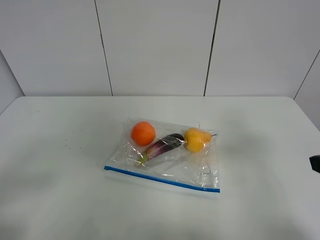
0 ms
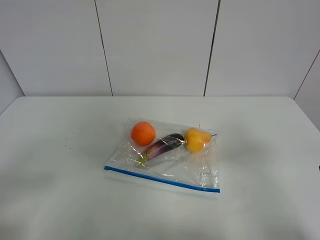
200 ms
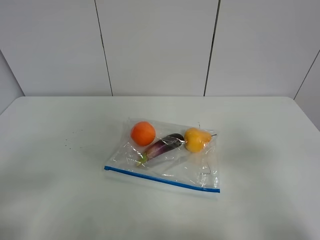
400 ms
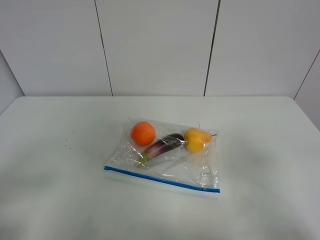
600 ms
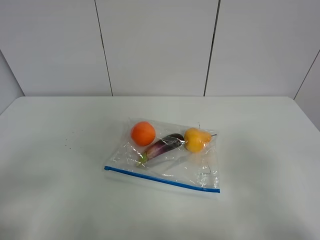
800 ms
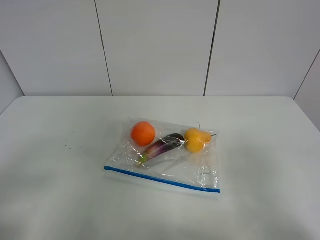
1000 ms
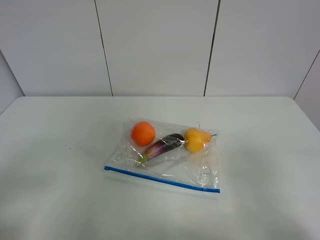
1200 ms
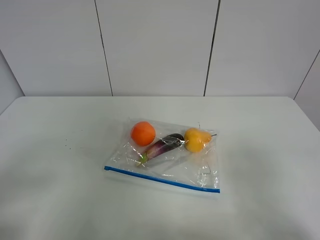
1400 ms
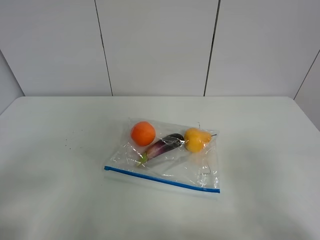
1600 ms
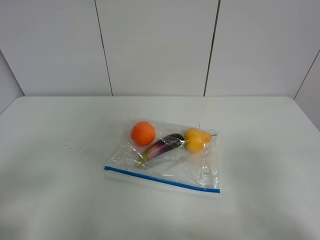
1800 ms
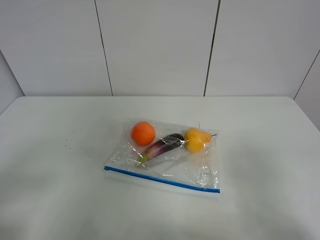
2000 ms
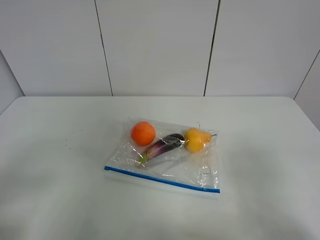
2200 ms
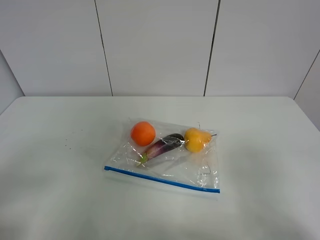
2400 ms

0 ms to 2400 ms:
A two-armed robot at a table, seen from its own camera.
1200 ms to 2400 ms: Both grippers stay put.

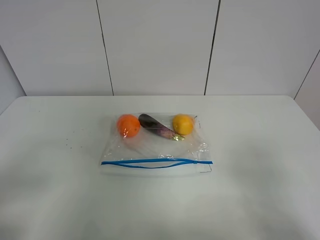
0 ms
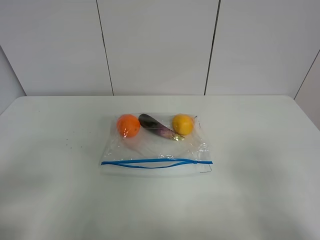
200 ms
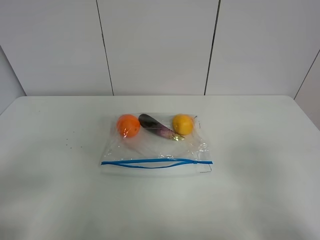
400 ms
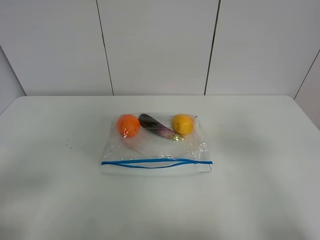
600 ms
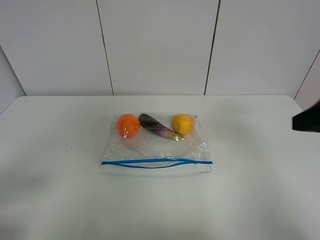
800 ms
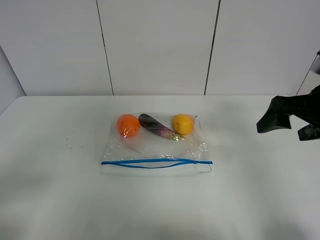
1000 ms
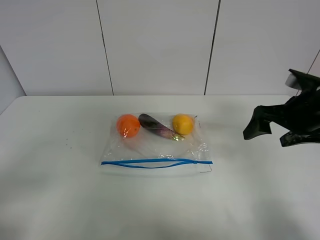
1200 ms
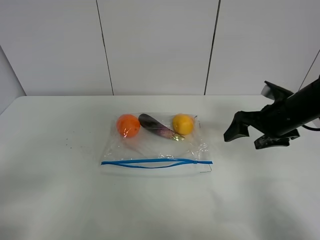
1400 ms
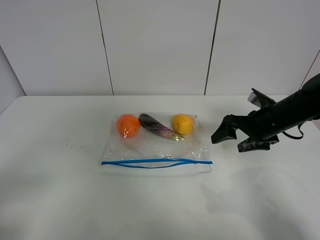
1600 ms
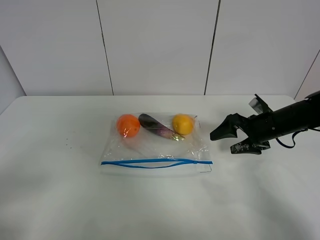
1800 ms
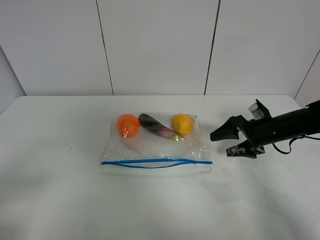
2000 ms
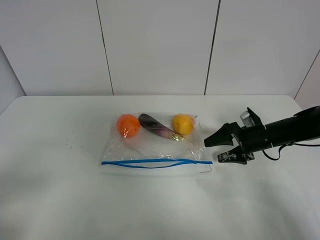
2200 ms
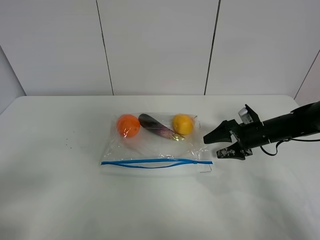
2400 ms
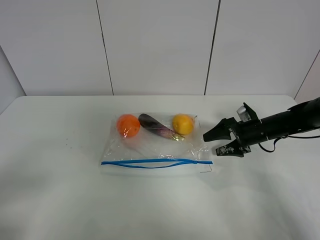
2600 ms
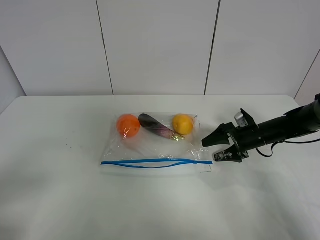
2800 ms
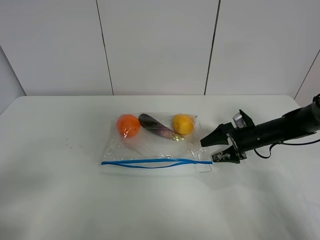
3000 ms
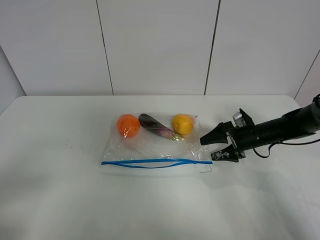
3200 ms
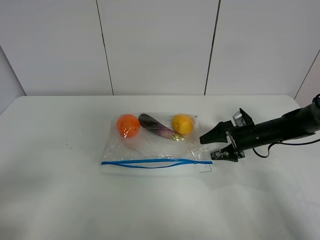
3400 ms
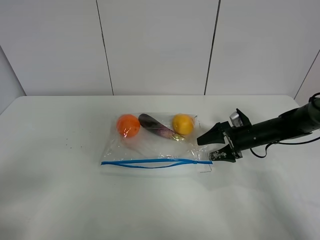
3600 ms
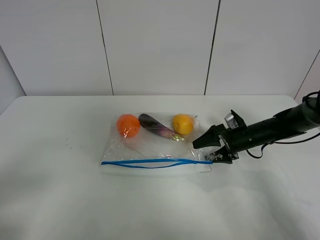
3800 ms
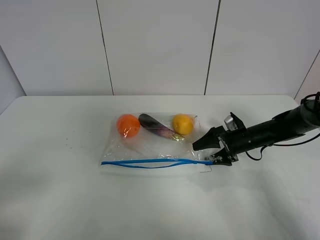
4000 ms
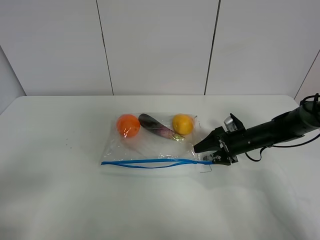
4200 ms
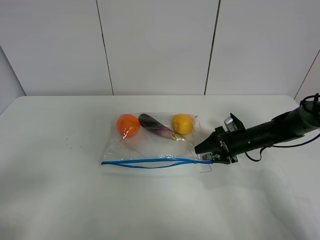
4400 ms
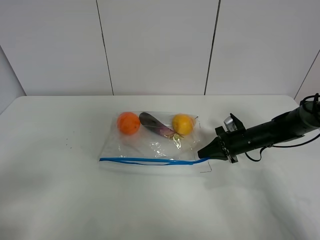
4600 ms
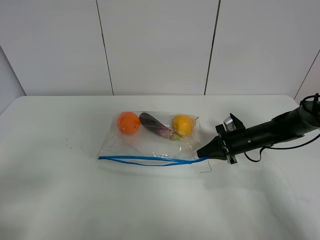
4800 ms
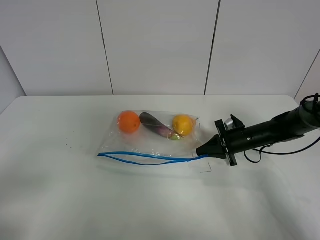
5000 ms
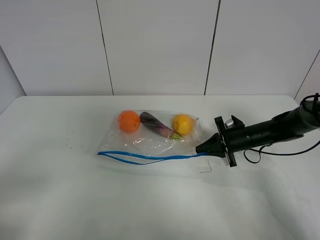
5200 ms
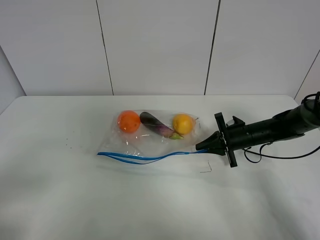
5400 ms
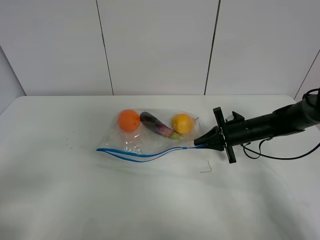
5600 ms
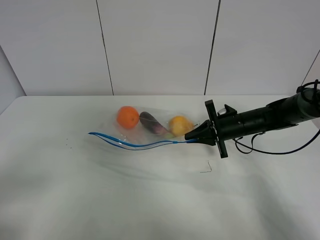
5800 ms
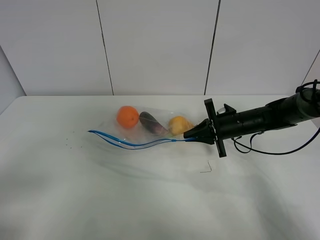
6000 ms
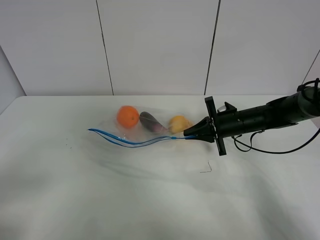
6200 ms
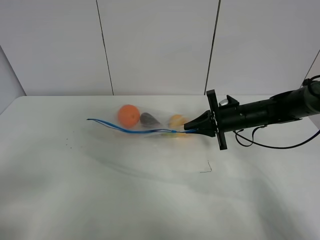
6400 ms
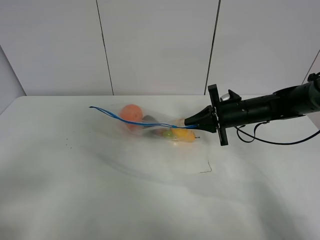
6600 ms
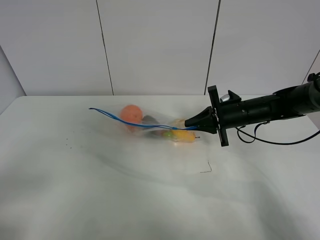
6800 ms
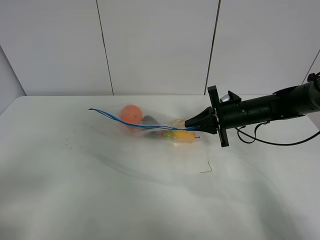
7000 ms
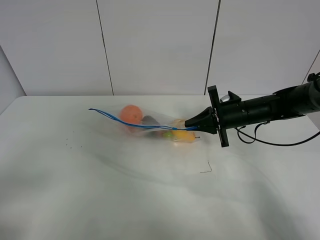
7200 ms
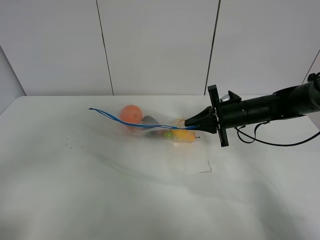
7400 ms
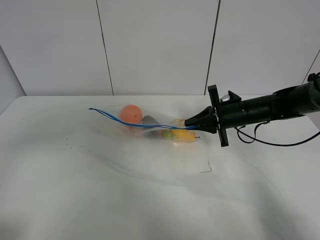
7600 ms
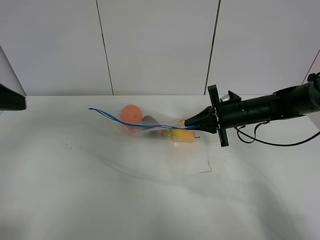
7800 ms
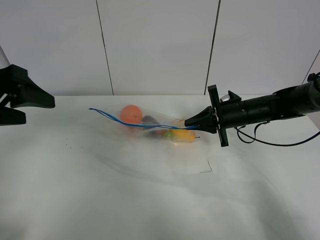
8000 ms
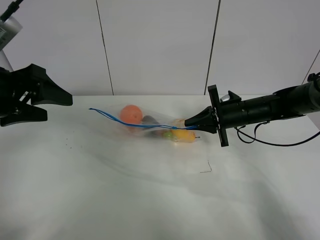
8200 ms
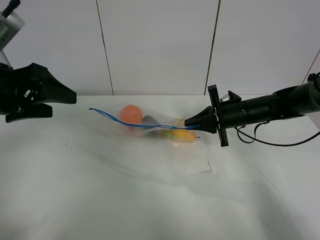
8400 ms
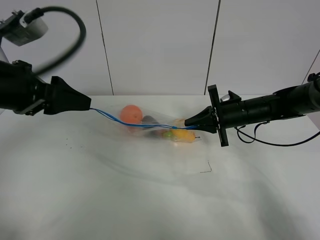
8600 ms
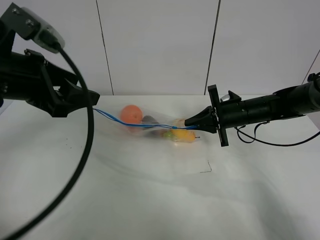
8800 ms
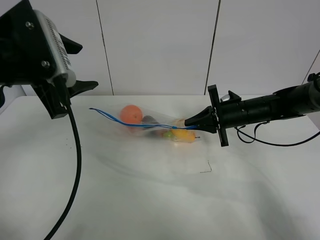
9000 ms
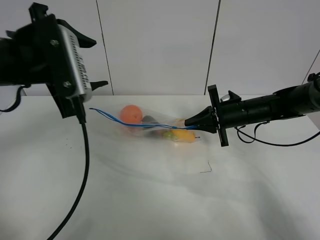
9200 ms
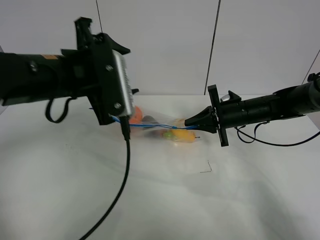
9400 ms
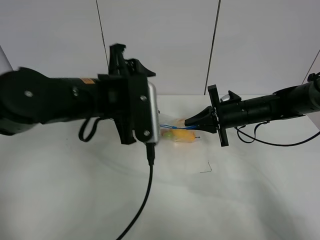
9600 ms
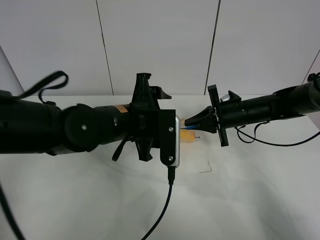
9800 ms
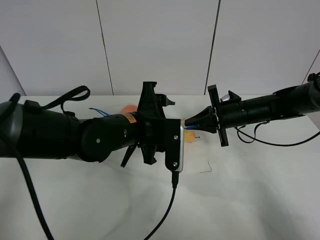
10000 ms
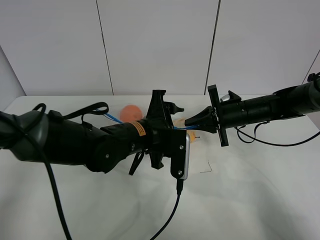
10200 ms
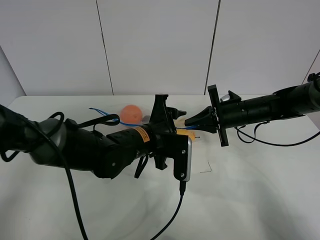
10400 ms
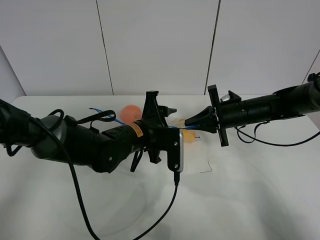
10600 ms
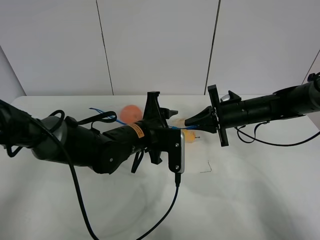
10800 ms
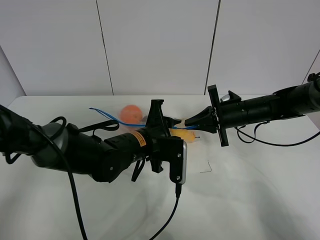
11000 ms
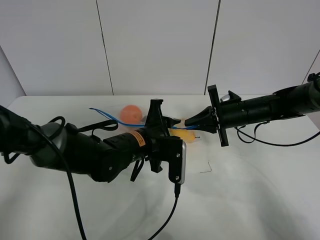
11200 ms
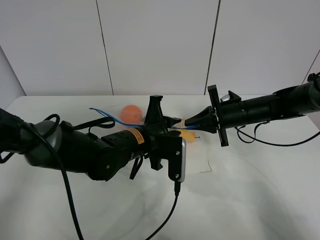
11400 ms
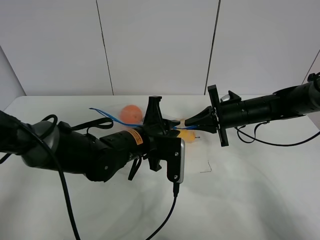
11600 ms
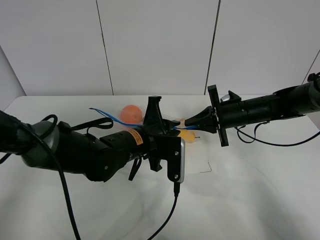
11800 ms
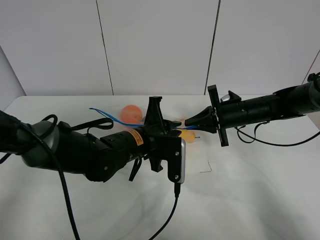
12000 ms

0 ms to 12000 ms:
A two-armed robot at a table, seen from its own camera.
Step, 0 ms to 4600 ms: Grasp the fruit bag with right gripper.
Step, 4800 ms to 6800 ms: Lift the fruit bag with your right gripper.
0 ms to 1600 ms: The right gripper moves forward, approximately 30 cm.
1600 ms to 3000 ms: The right gripper travels downward by about 10 cm.
3000 ms to 4400 ms: The right gripper closes.
4400 ms to 6000 ms: The right gripper goes some 5 cm upward, and closes its fingers.
6000 ms to 7600 ms: The left gripper travels forward and upward by roughly 10 cm.
7600 ms to 9000 ms: The left gripper shifts about 15 cm forward and to the right.
9000 ms to 10400 ms: The left gripper shifts roughly 25 cm downward and to the right.
10400 ms to 12000 ms: The left gripper closes its fingers.

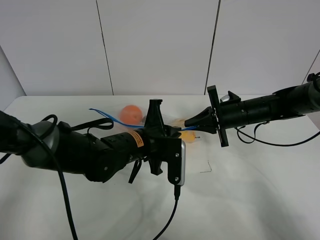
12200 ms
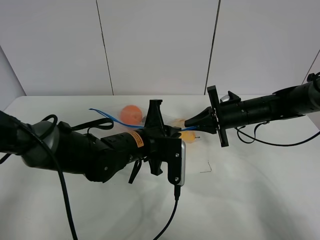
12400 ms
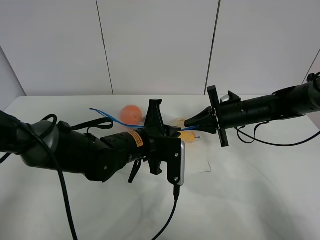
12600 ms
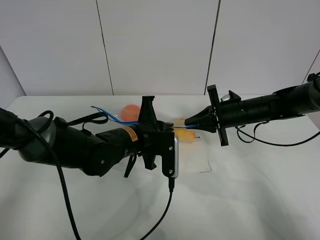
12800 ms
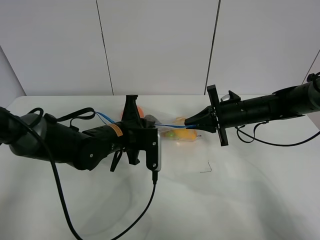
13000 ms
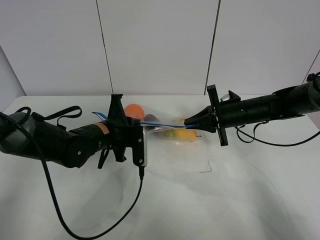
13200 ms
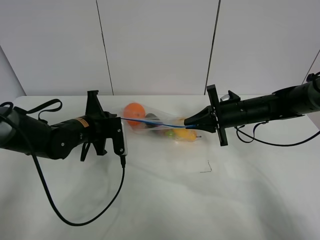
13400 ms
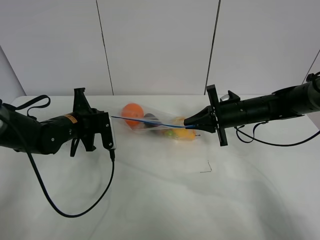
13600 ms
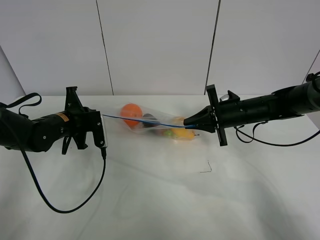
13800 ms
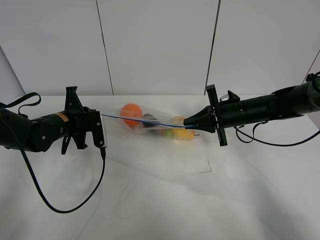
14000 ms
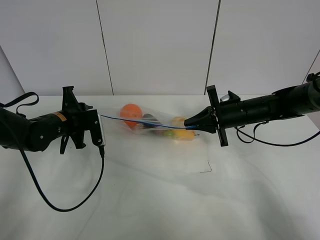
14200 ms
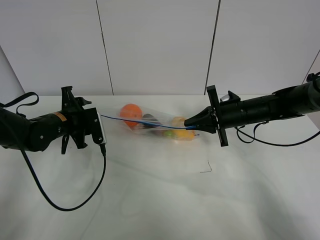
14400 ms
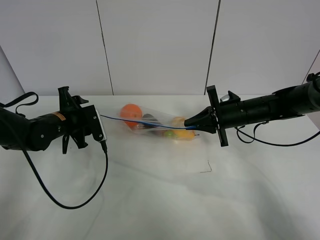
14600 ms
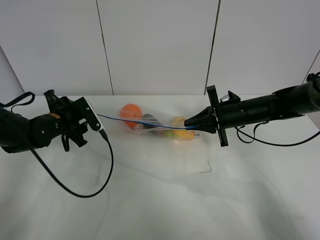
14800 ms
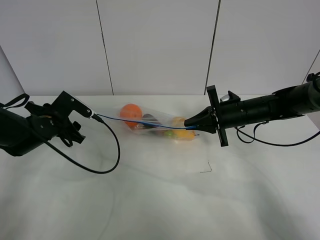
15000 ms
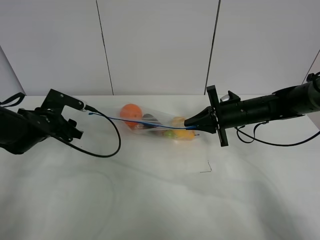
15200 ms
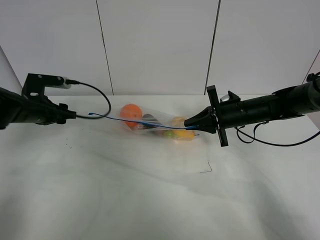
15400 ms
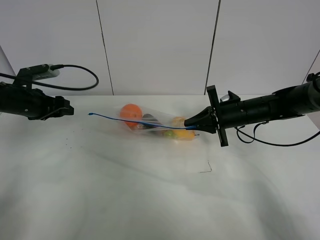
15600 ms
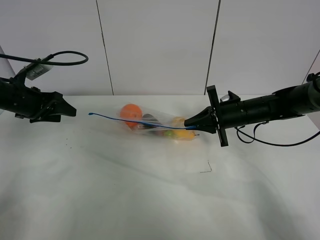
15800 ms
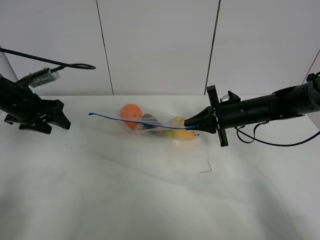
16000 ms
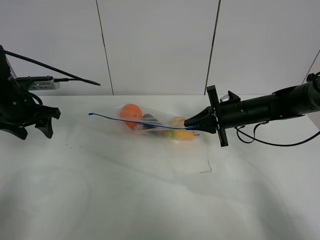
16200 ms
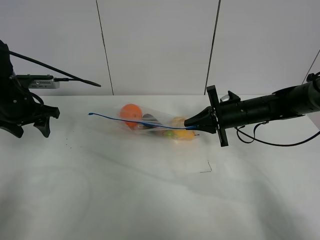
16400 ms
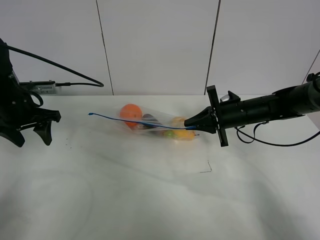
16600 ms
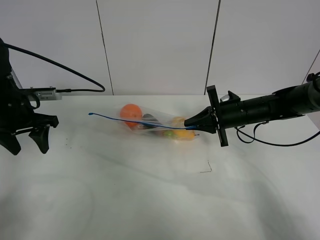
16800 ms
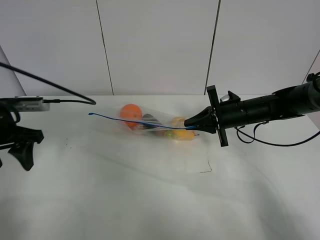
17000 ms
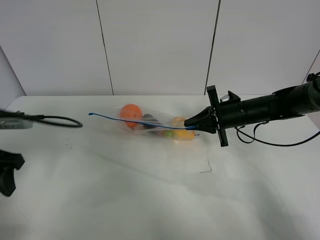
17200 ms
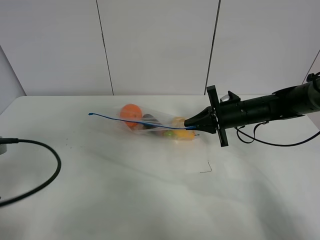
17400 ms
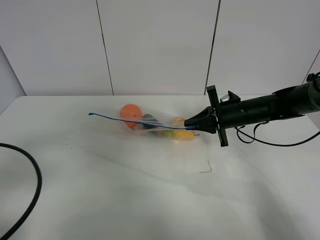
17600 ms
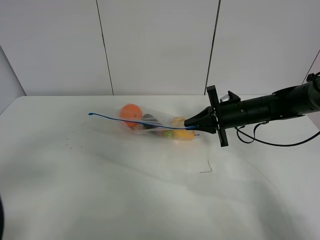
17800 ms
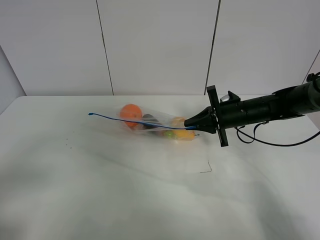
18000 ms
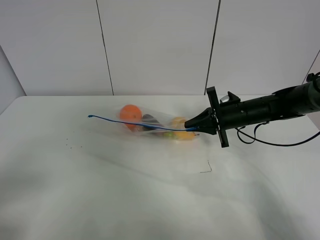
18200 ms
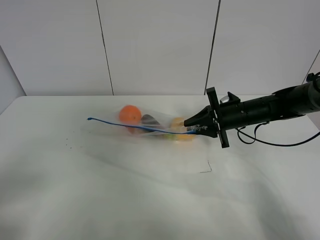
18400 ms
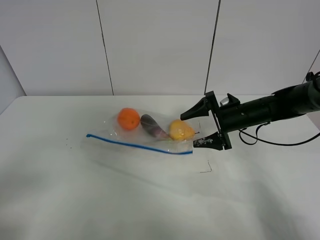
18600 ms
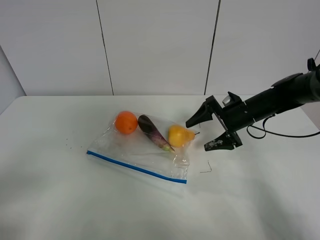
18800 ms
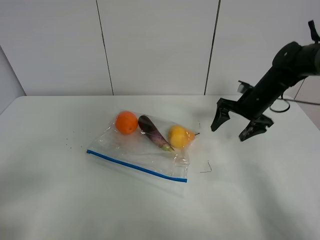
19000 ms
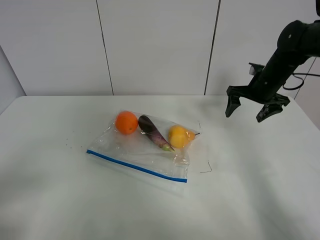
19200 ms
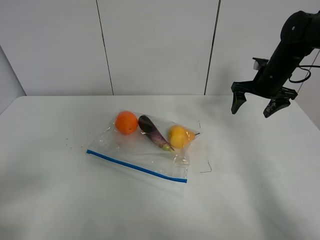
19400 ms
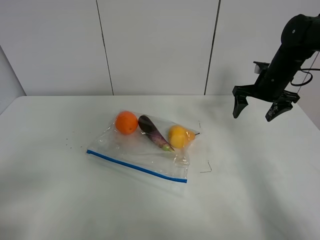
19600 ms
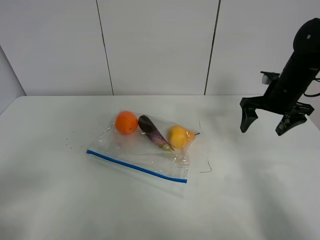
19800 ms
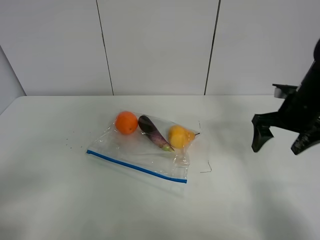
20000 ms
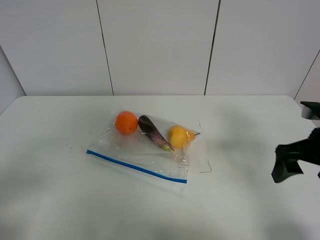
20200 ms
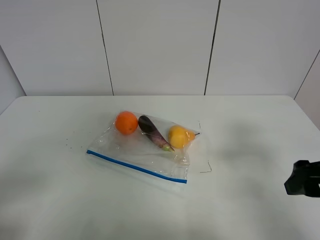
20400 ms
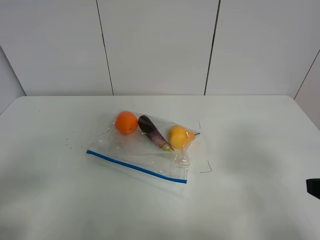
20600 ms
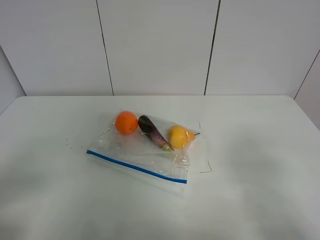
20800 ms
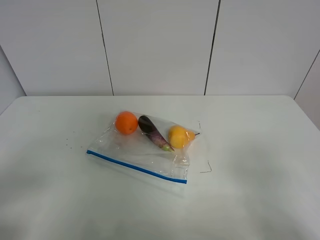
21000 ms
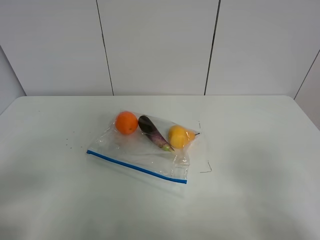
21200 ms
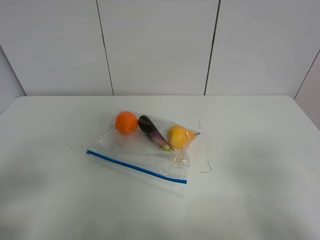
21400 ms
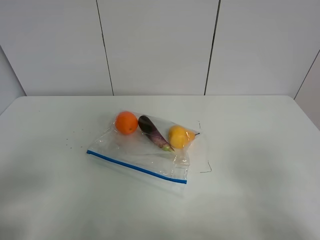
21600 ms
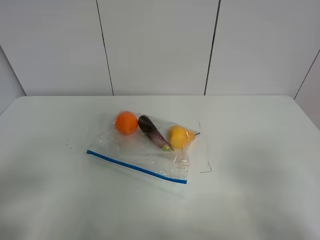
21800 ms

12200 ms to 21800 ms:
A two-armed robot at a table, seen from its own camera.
Step, 12200 ms to 14400 ms: Pull the fruit bag with left gripper.
12200 ms to 13800 ms: The left gripper is displaced to the left and forward by roughly 20 cm.
13800 ms to 15400 ms: The left gripper moves to the left, some 10 cm, and opens.
15400 ms to 17000 ms: The left gripper moves backward and upward, roughly 10 cm.
17000 ms to 18600 ms: The left gripper travels backward by some 25 cm, while the right gripper opens.
18600 ms to 20200 ms: The right gripper heads backward, upward and to the right, covering approximately 20 cm.
20200 ms to 21800 ms: The right gripper travels backward by about 20 cm.
